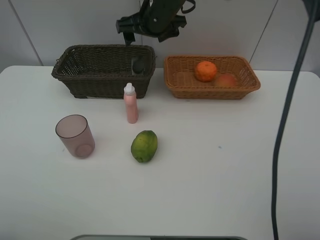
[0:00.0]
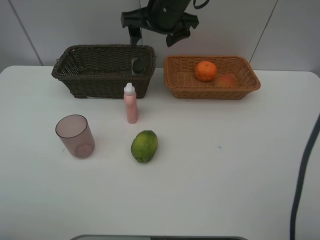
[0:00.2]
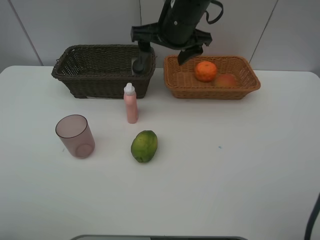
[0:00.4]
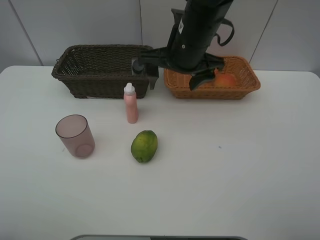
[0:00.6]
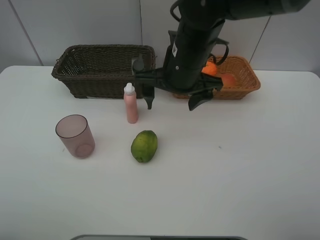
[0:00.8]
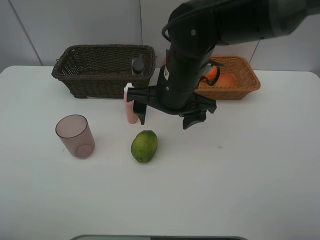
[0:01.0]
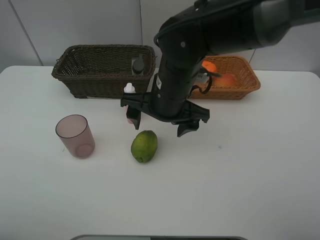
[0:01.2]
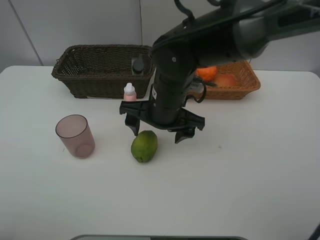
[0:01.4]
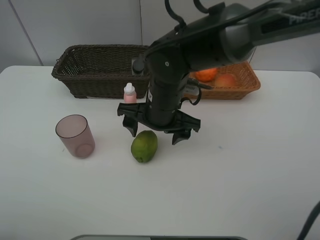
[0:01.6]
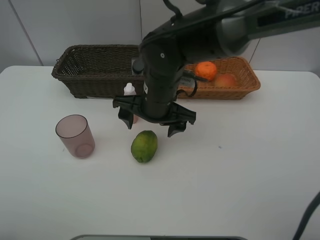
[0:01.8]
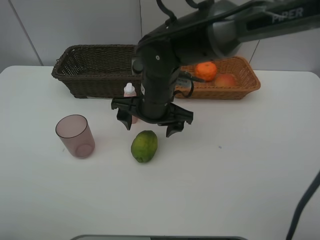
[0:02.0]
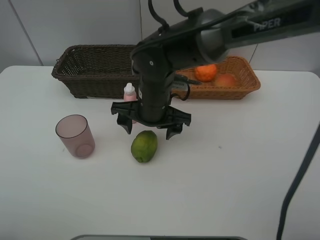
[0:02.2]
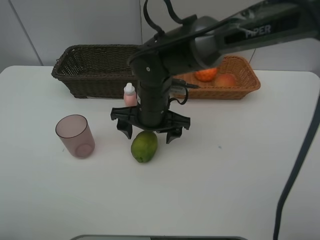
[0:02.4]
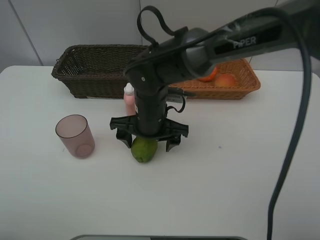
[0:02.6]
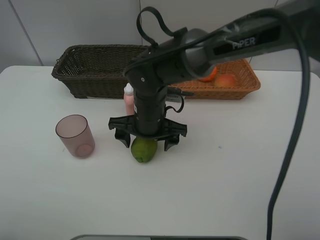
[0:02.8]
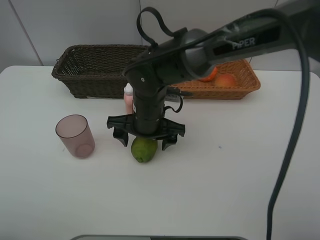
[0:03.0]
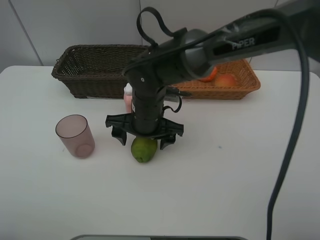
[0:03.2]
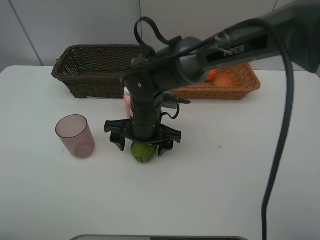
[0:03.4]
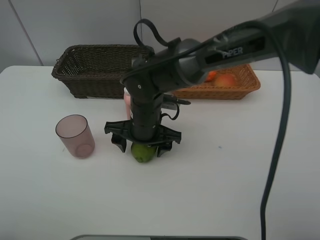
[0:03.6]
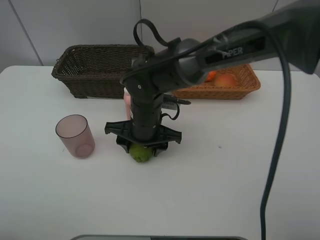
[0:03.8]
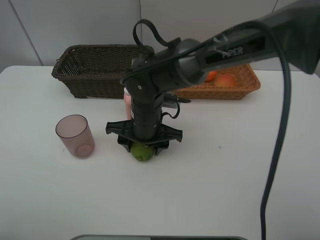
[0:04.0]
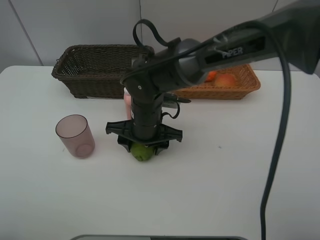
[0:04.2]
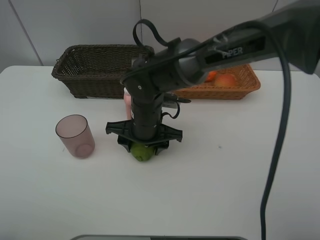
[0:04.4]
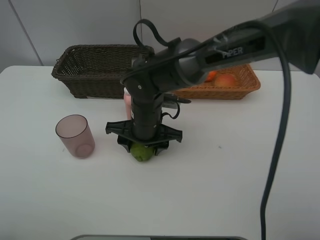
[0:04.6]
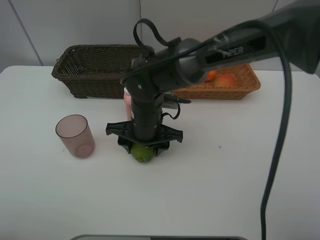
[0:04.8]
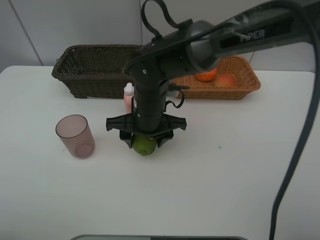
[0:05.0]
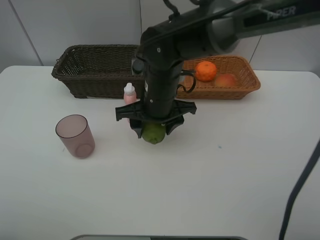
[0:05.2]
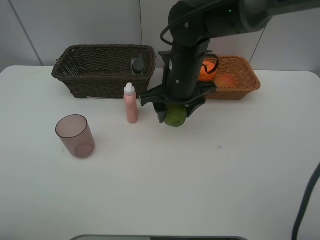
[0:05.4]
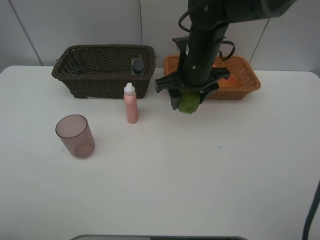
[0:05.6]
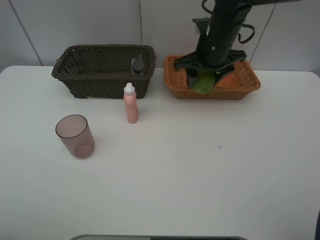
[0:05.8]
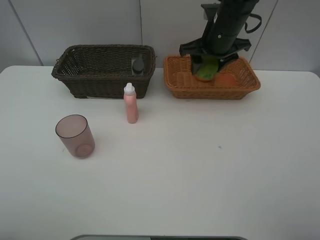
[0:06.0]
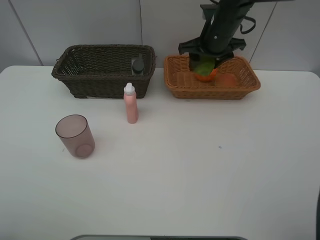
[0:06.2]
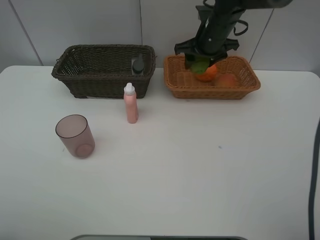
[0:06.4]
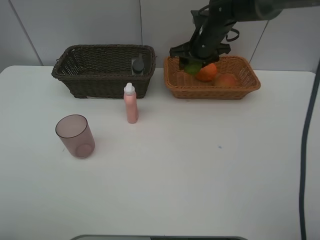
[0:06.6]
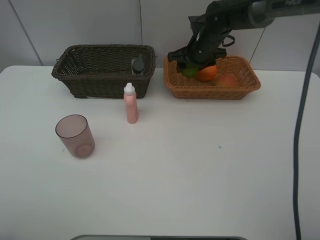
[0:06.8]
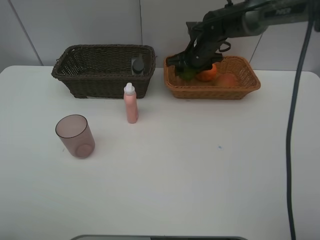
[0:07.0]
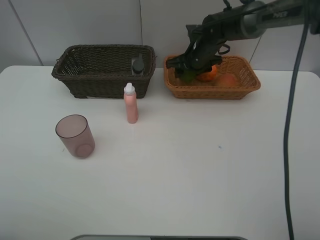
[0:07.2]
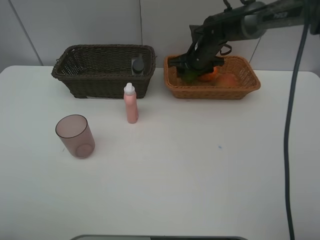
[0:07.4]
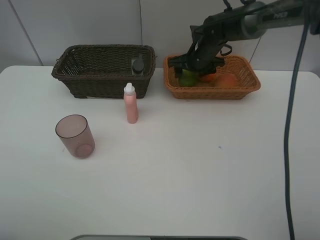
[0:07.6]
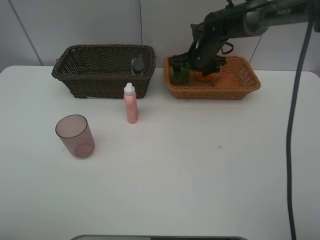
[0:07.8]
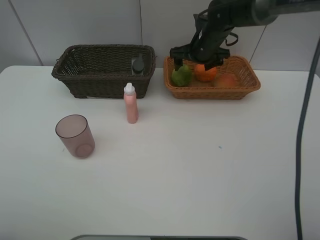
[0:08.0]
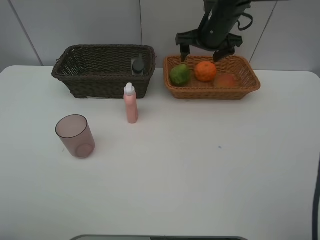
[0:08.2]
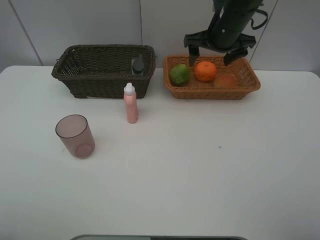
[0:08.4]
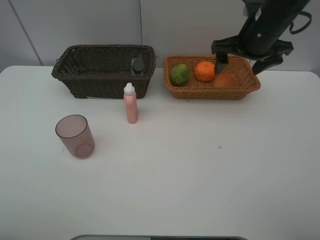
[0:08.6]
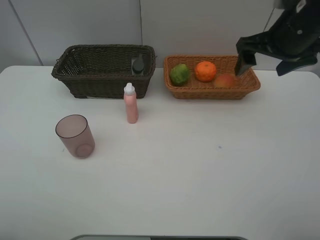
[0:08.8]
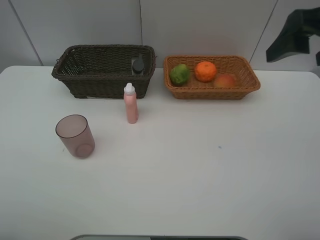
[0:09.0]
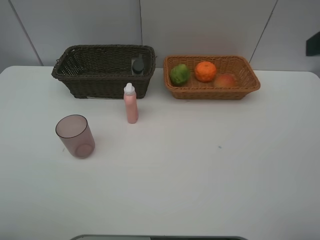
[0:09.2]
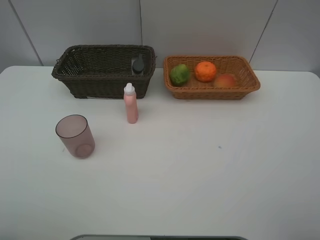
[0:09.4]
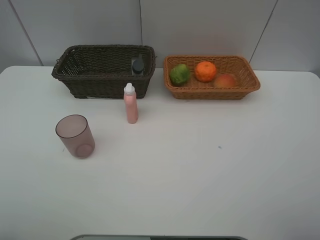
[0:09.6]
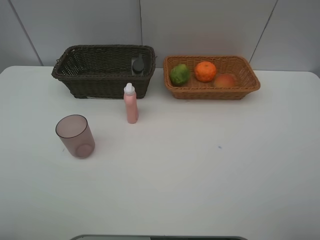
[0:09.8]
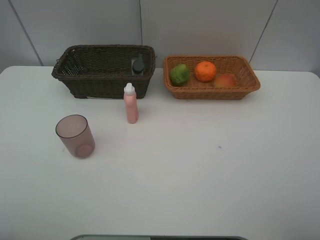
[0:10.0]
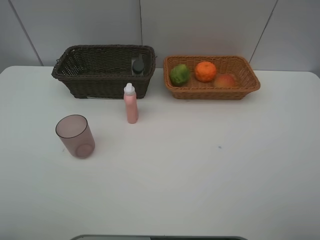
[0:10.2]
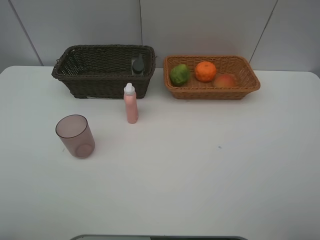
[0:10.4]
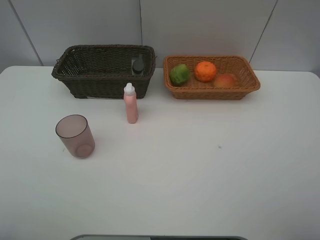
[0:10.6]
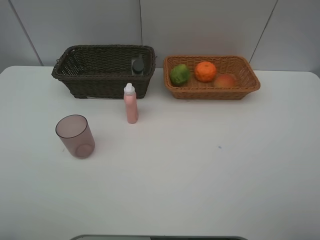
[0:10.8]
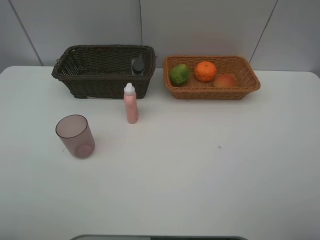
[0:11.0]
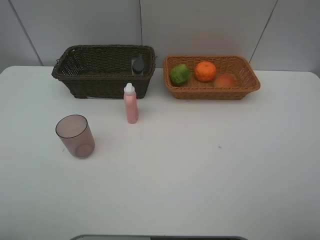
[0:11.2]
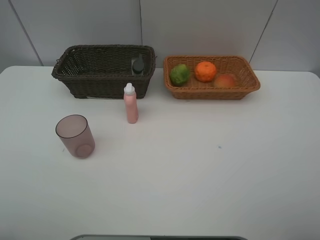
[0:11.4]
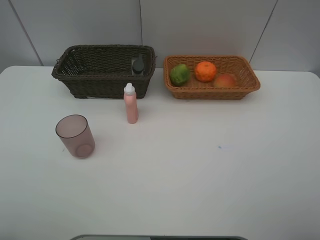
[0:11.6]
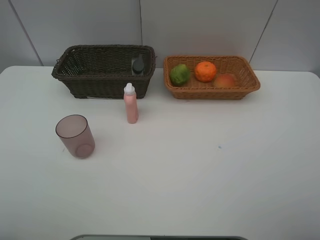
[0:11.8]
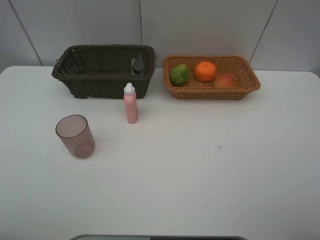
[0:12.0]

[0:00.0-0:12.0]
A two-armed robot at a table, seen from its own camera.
Task of the whole recording: place multiple objects separately in different baskets.
0:00.0 to 0:01.6: The right gripper shifts some 20 cm backward and downward.
0:01.6 to 0:03.0: The grippers move only a little.
0:03.0 to 0:04.4: The right gripper closes its fingers.
0:04.4 to 0:06.0: The right gripper is displaced to the right, forward and upward by some 25 cm.
0:06.0 to 0:07.6: The right gripper goes some 10 cm downward and forward, and opens.
0:07.6 to 0:09.0: The right gripper is displaced backward, upward and to the right by approximately 40 cm.
0:09.0 to 0:10.4: The right gripper shifts about 20 cm backward.

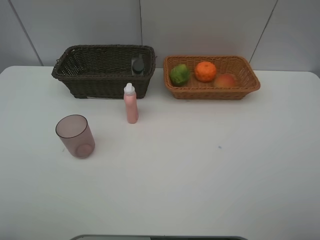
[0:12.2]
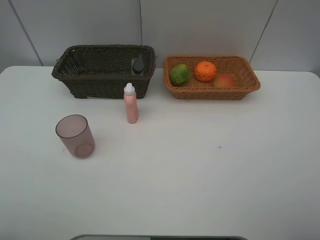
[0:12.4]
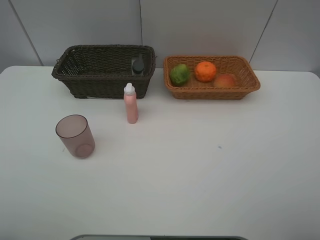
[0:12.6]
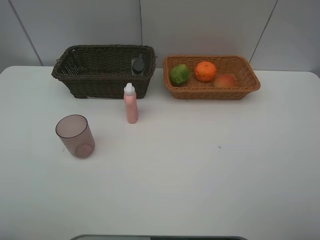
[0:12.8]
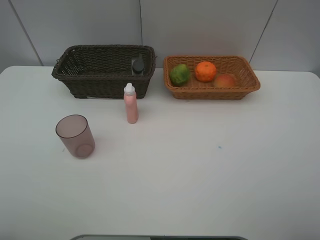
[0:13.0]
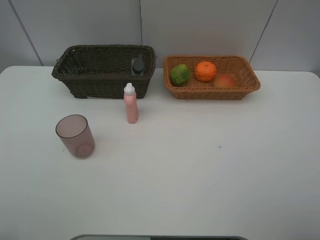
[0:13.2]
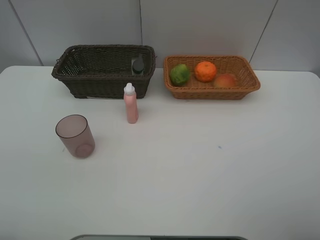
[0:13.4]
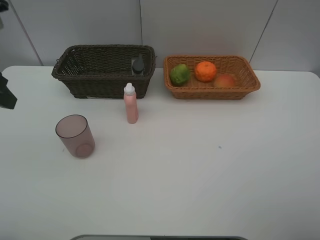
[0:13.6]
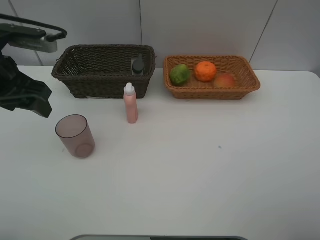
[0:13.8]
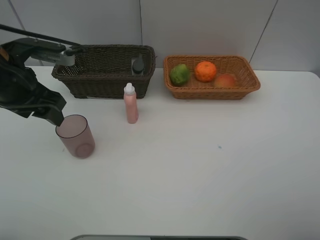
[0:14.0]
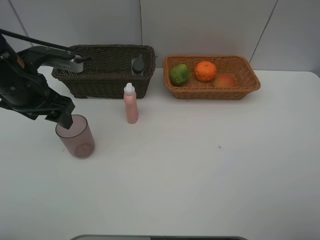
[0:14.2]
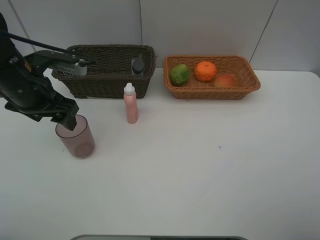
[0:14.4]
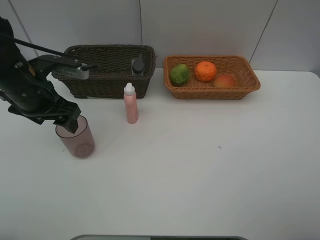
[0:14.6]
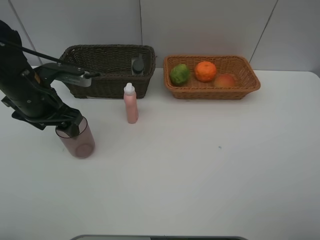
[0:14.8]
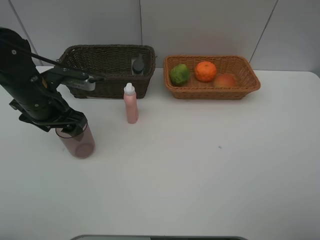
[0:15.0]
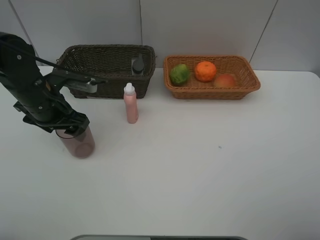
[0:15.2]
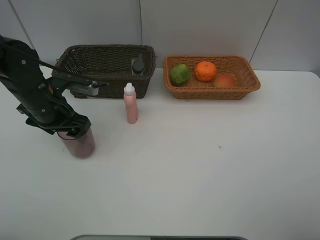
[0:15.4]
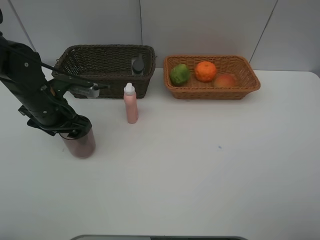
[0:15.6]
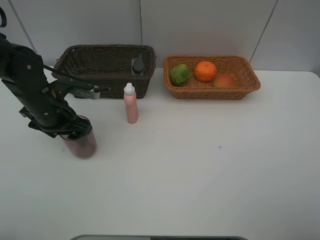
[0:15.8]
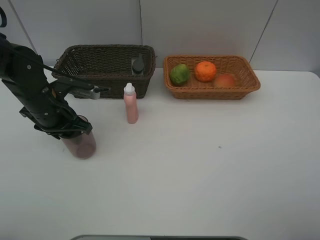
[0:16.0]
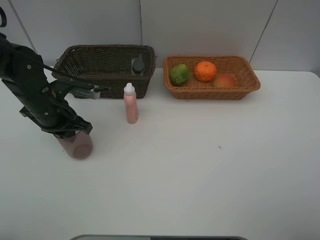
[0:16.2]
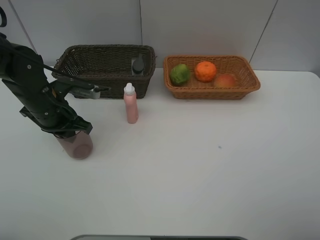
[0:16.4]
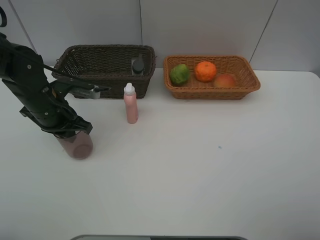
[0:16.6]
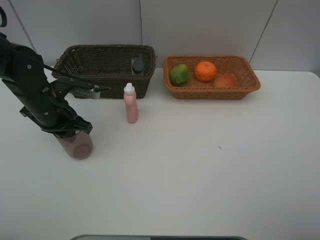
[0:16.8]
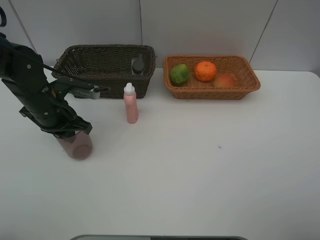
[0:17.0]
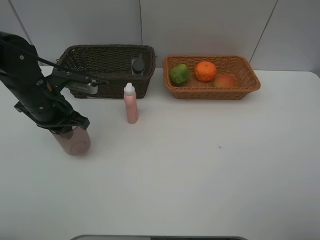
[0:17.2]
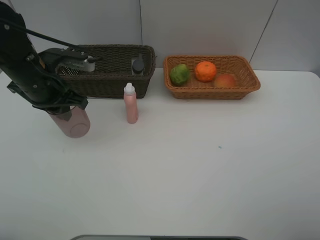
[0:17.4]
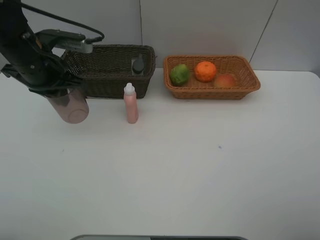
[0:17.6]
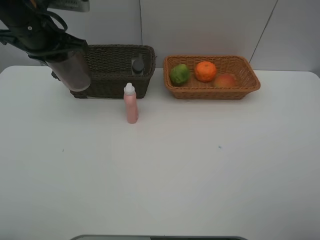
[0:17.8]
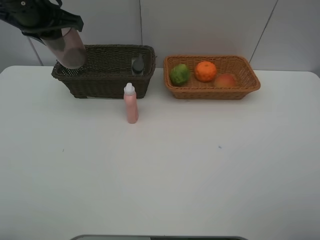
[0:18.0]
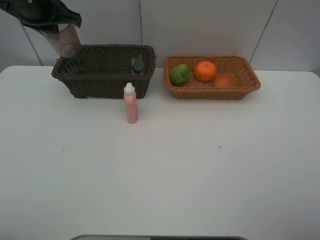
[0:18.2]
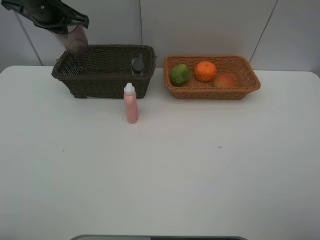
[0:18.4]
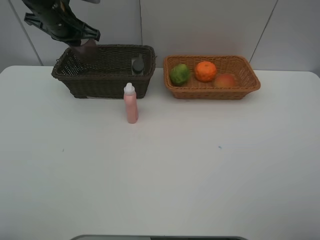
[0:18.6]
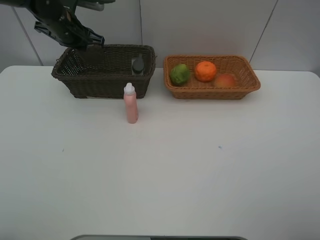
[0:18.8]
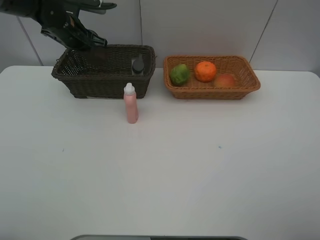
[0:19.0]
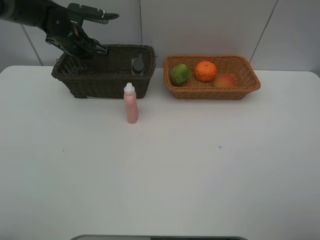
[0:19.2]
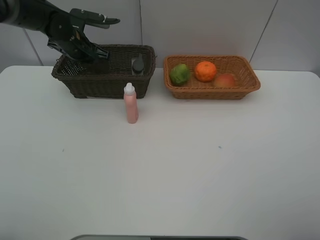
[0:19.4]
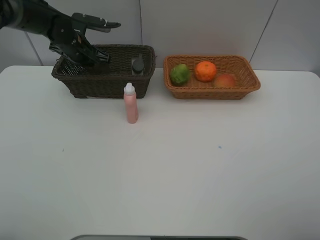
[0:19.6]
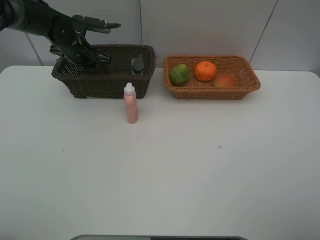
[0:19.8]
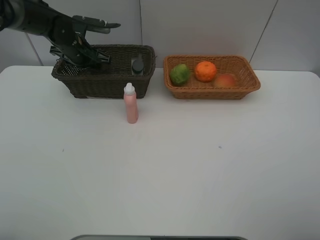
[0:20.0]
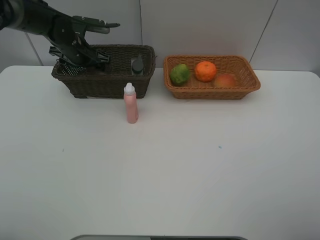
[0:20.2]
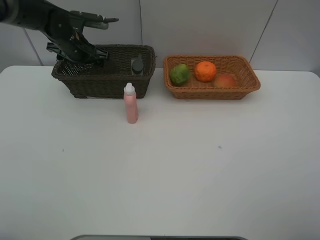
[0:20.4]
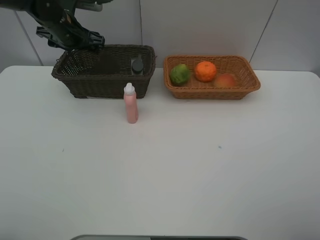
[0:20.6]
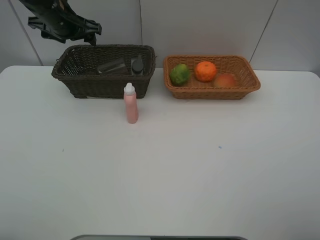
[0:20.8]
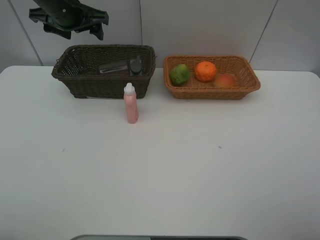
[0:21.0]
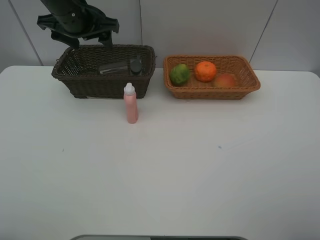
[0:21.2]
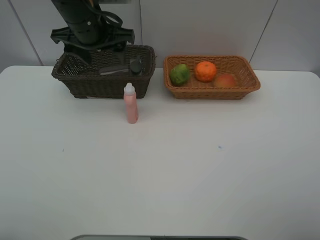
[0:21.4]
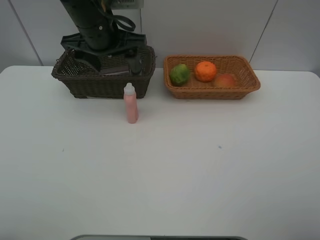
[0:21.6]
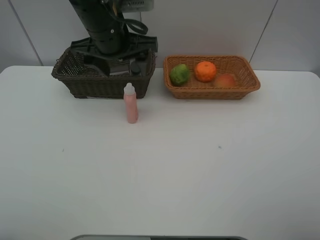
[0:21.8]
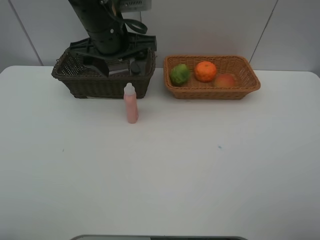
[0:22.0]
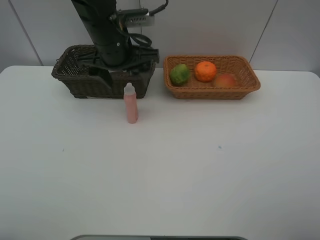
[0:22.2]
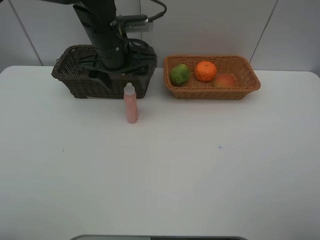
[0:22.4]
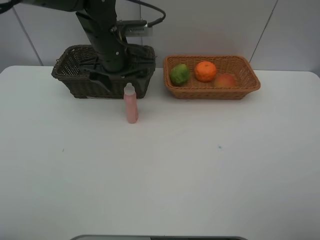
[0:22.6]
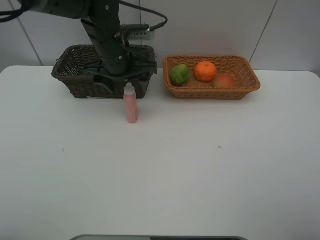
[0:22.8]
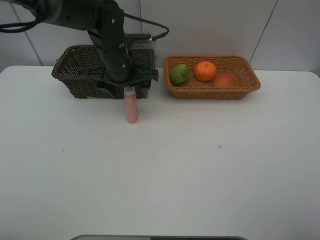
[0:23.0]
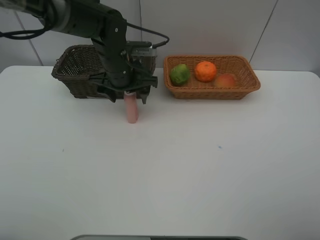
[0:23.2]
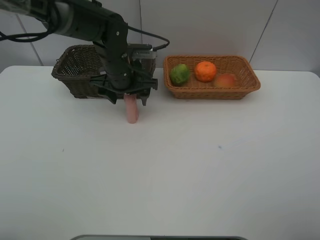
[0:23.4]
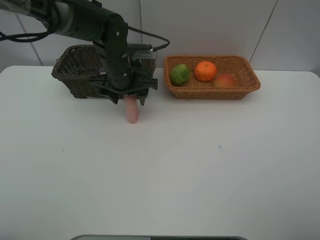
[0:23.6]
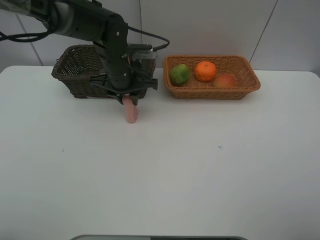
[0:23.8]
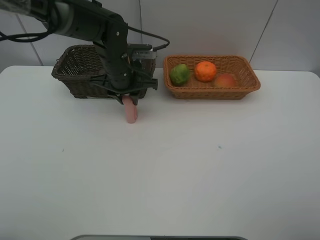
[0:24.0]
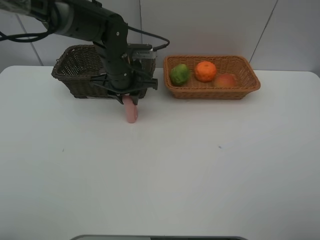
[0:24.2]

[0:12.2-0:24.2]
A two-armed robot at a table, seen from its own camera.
Task of the whole recording: place multiple objects separately in different baskets.
0:12.2 to 0:13.8: The left gripper heads forward, covering roughly 25 cm.
0:13.8 to 0:15.2: The left gripper goes some 10 cm downward.
0:15.2 to 0:16.6: The left gripper closes.
0:16.6 to 0:18.2: The left gripper moves upward and forward, about 20 cm.
0:18.2 to 0:19.8: The left gripper travels downward and forward by approximately 15 cm.
0:19.8 to 0:21.2: The left gripper shifts roughly 15 cm upward, backward and to the right, and opens its fingers.
0:21.2 to 0:22.6: The left gripper is displaced to the right and downward by about 10 cm.
0:22.6 to 0:24.2: The left gripper moves downward, about 5 cm, and closes its fingers.
